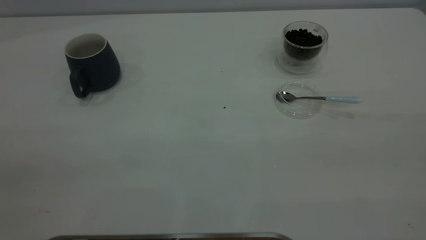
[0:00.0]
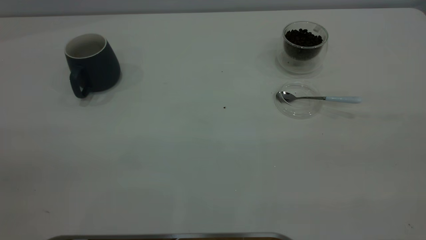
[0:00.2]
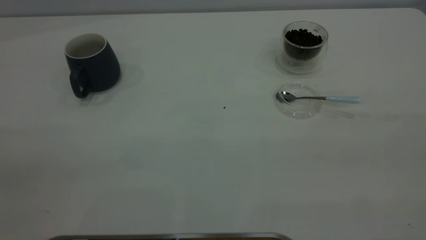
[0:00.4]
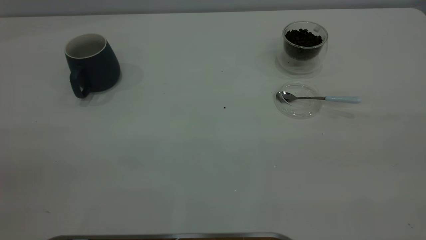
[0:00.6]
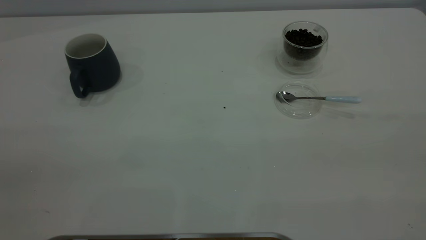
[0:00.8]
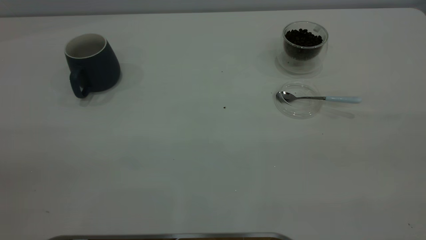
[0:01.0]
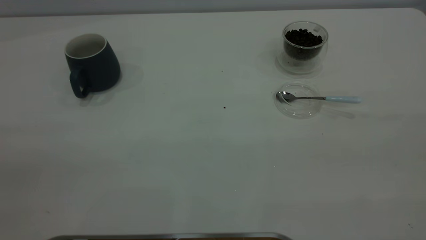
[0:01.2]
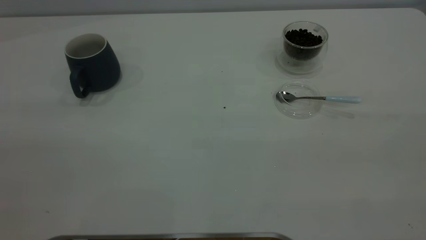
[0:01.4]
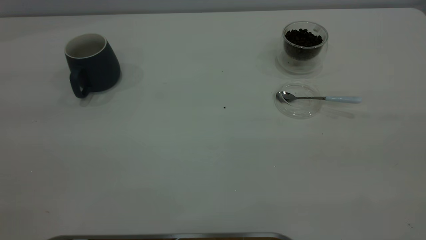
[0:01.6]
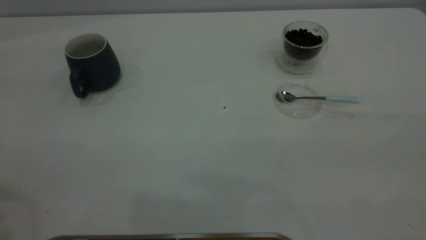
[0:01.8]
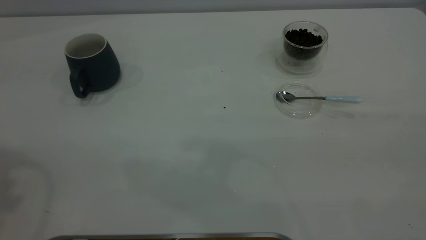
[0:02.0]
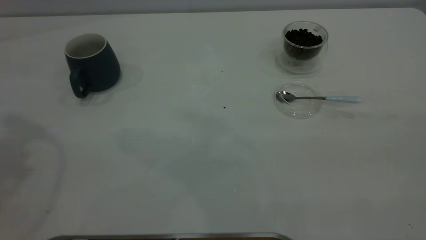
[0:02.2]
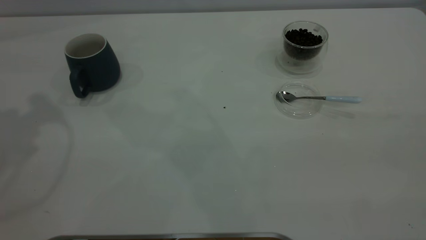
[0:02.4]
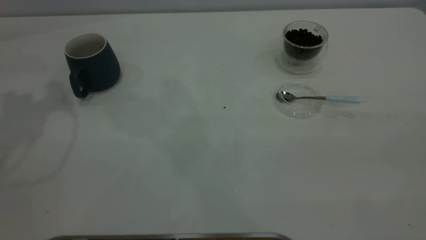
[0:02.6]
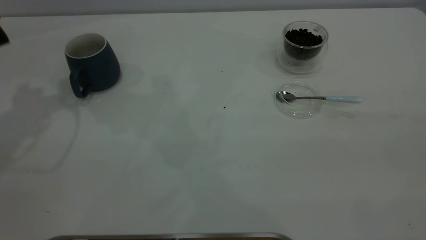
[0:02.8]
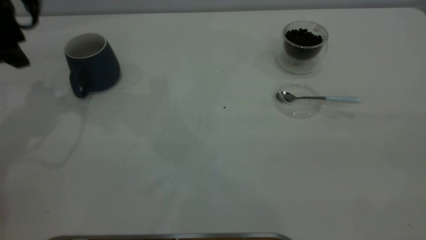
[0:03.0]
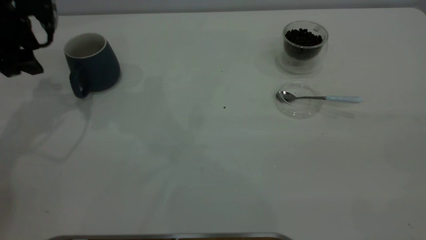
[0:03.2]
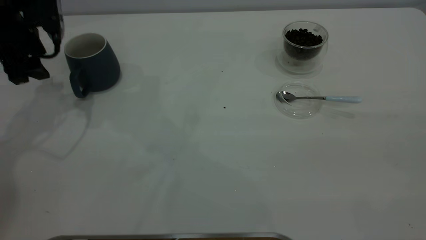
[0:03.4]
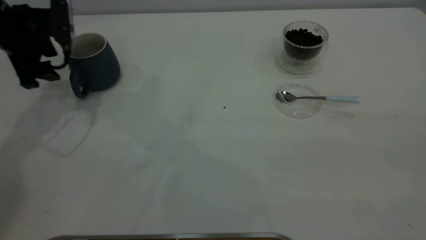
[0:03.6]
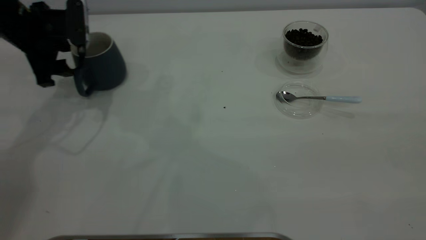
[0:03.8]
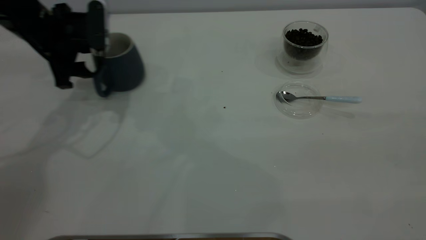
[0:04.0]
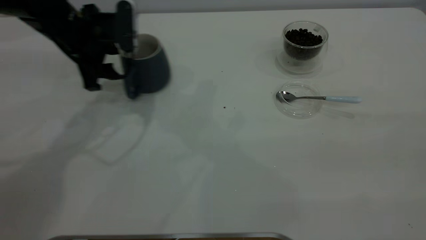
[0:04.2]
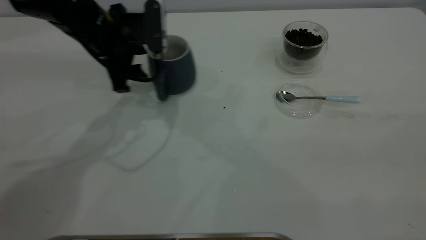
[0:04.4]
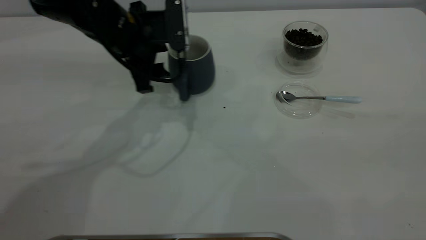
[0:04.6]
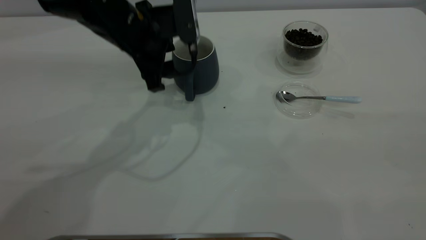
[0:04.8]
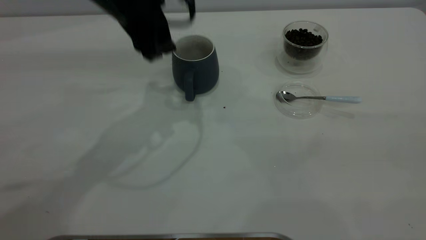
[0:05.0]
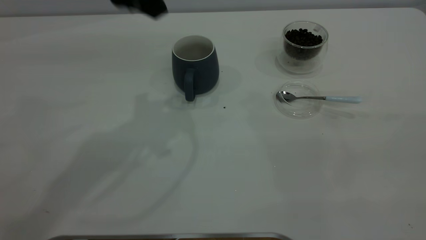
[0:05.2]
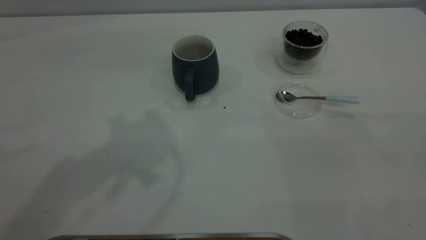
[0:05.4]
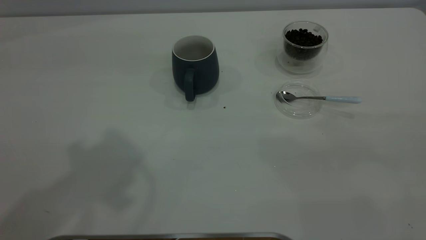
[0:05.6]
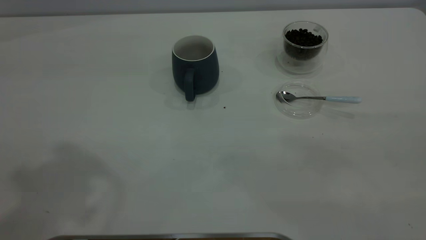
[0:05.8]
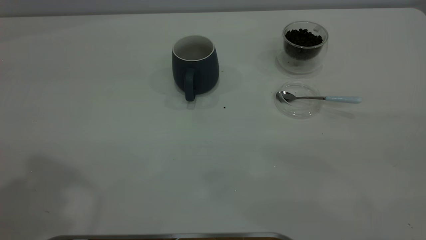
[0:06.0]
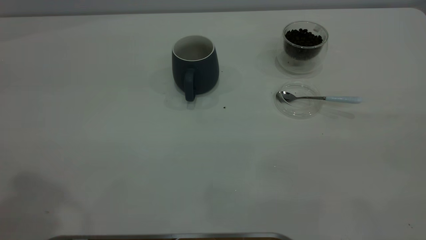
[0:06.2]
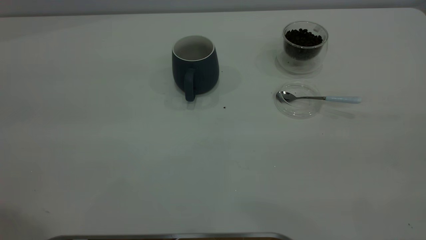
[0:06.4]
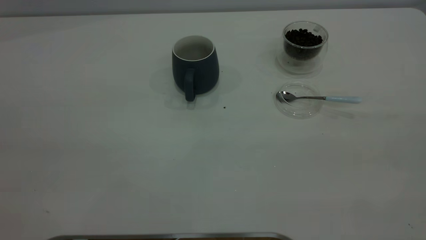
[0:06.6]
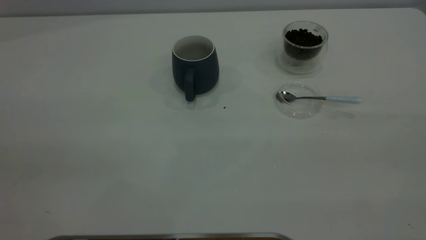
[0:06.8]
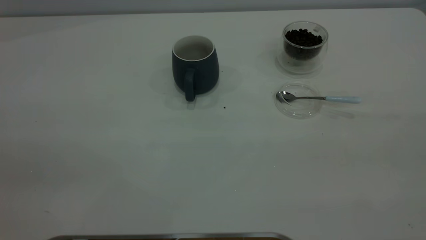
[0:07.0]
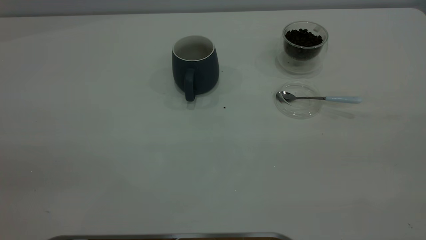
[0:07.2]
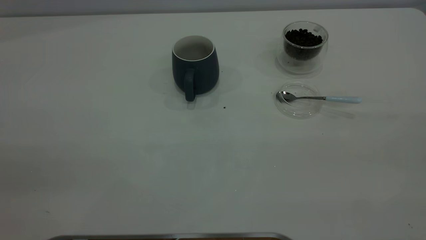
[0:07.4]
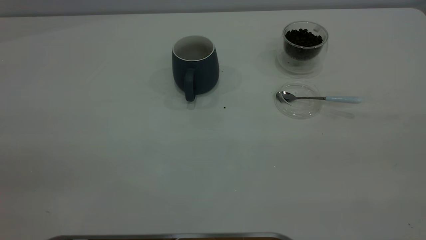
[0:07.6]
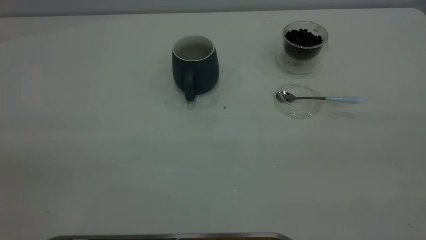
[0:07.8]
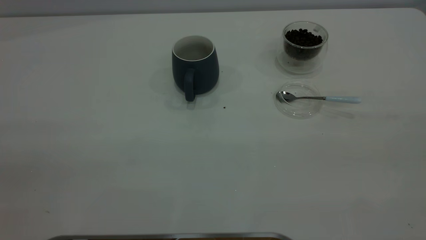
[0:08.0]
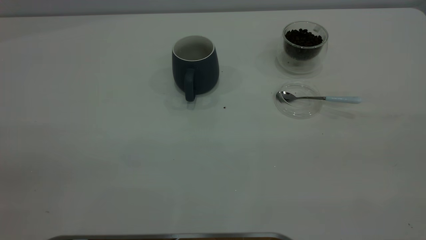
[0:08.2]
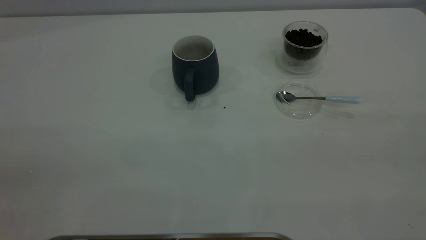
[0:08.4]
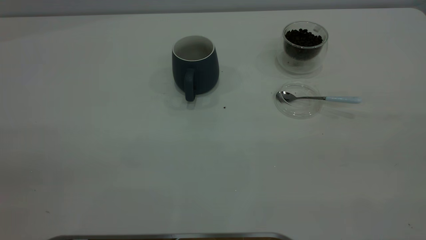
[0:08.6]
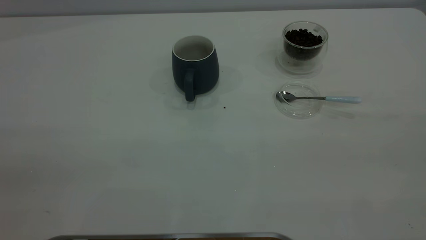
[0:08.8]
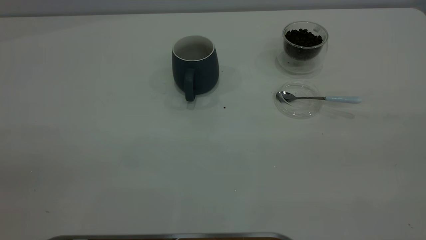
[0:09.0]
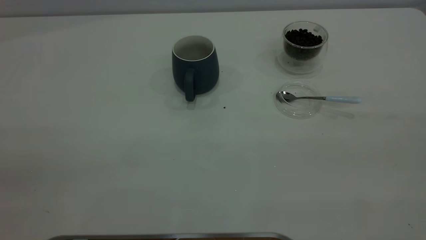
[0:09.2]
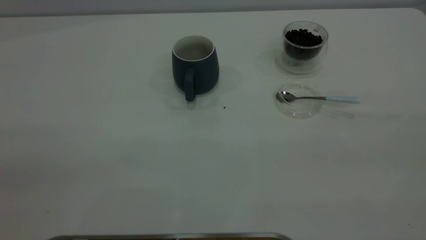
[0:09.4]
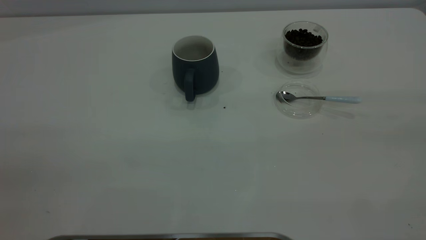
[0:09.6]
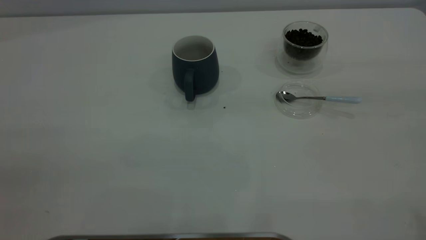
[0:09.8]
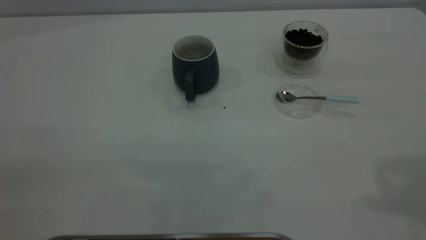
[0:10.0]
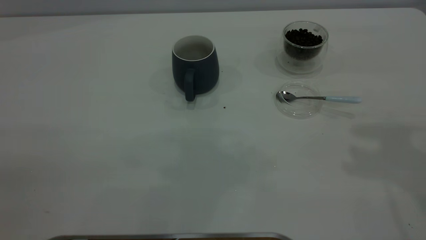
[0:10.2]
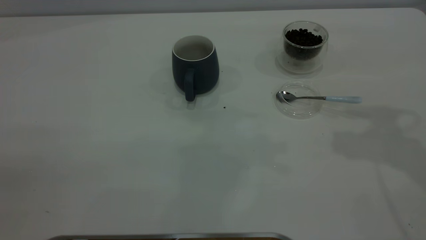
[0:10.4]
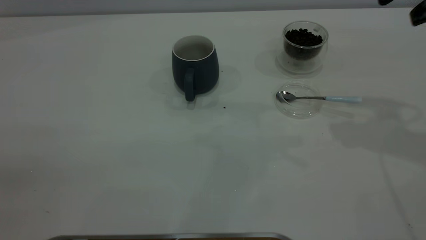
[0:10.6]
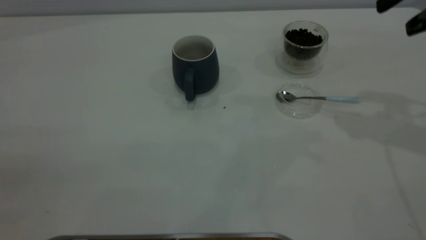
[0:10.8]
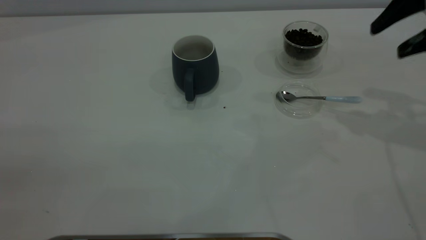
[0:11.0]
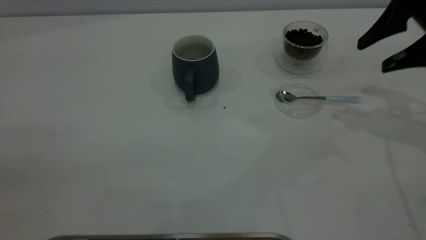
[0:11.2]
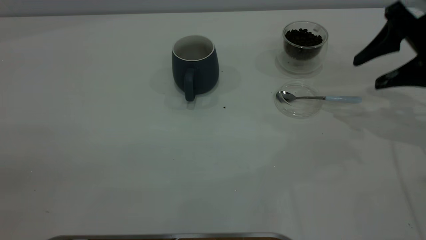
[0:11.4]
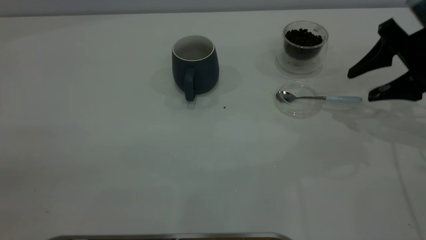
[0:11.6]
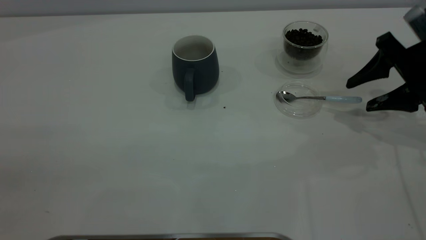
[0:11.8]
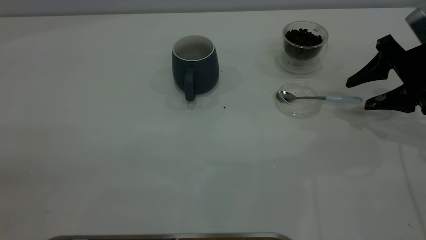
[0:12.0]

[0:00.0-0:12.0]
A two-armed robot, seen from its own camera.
Task of the whole recording: the left gripper place the grey cup in the center of the table, the right gripper take the blue spoon from the cup lid and scoop out the coffee beans from the coffee cup and put them into the grey cup, the right gripper put the spoon back into the cup lid.
Step, 0:00.0 to 0:05.0: Move the cup to the center of view.
0:01.6 to 0:03.0: The left gripper is displaced forward and downward by about 40 cm.
0:03.0 to 0:04.4: The left gripper is displaced to the right by about 15 cm.
0:04.4 to 0:06.0: The left gripper travels upward and backward by some 40 cm.
0:10.4 to 0:12.0: The right gripper moves downward, roughly 20 cm.

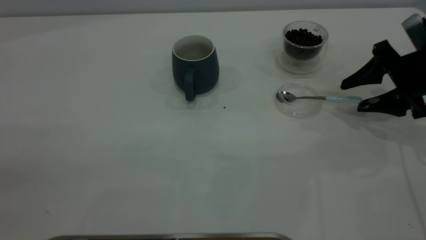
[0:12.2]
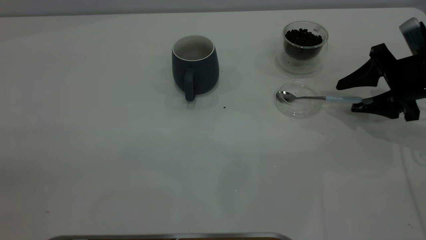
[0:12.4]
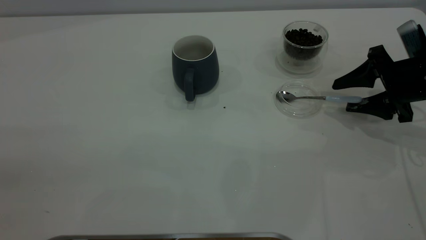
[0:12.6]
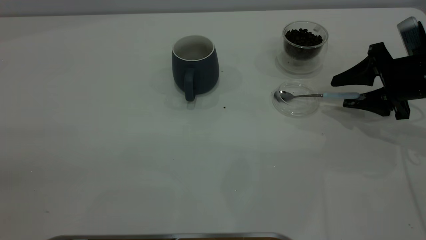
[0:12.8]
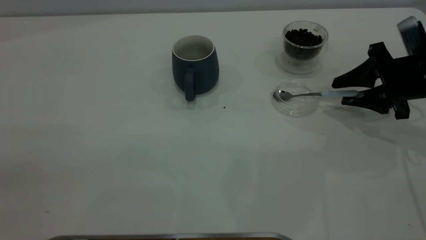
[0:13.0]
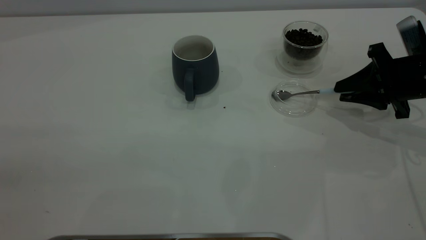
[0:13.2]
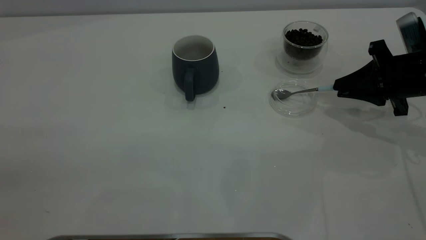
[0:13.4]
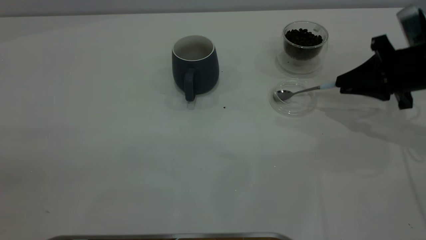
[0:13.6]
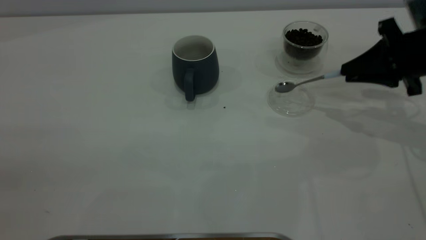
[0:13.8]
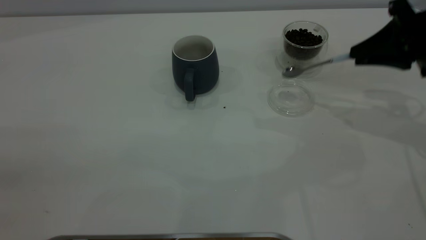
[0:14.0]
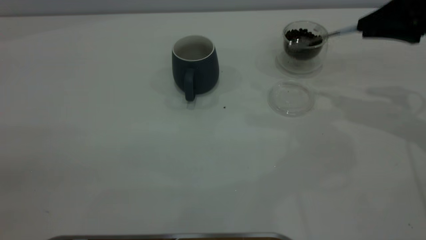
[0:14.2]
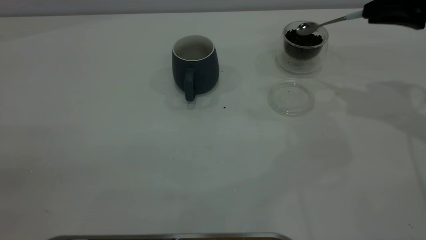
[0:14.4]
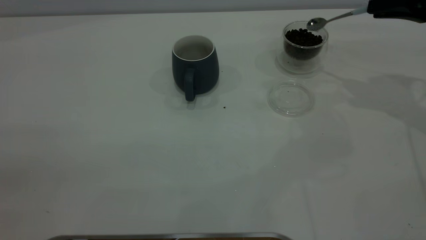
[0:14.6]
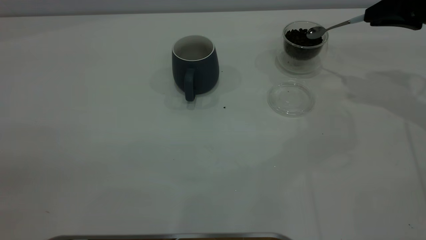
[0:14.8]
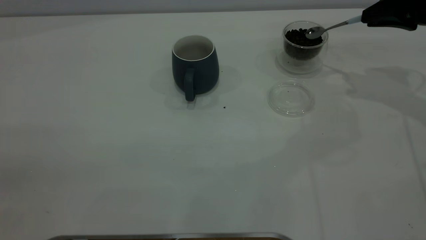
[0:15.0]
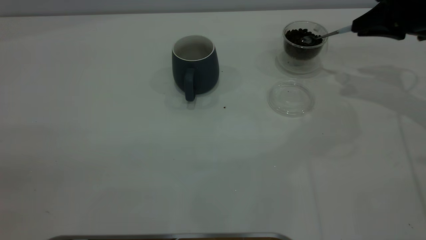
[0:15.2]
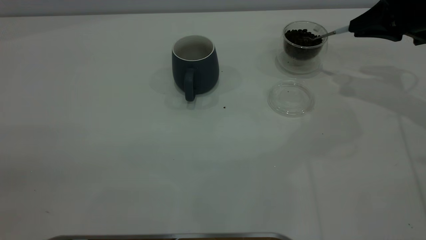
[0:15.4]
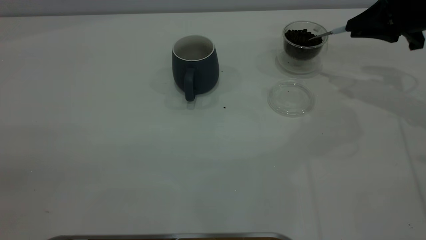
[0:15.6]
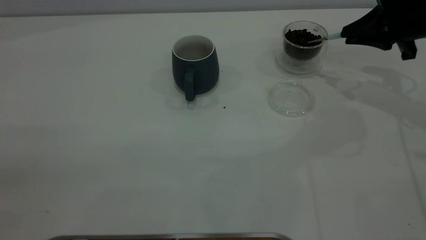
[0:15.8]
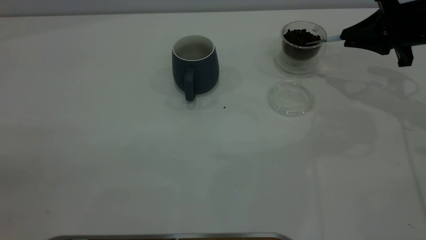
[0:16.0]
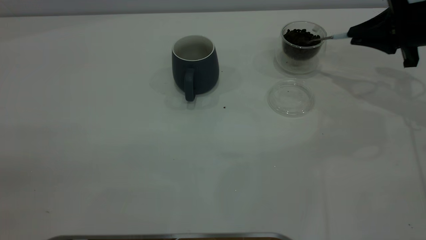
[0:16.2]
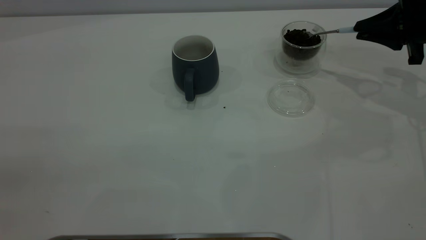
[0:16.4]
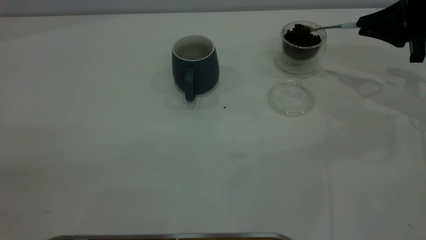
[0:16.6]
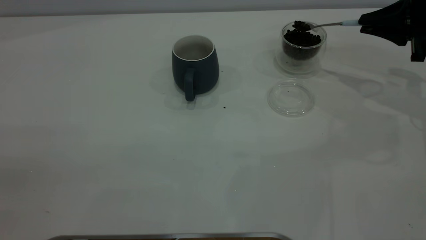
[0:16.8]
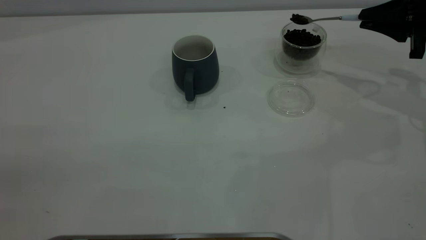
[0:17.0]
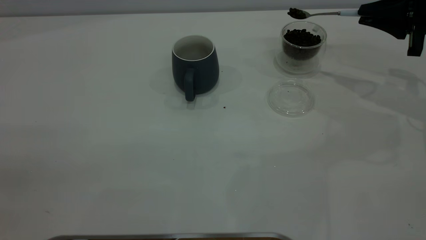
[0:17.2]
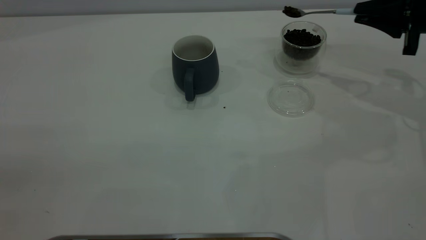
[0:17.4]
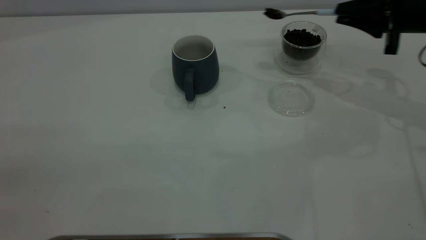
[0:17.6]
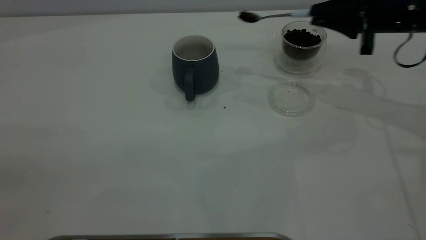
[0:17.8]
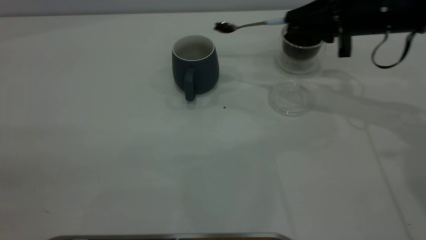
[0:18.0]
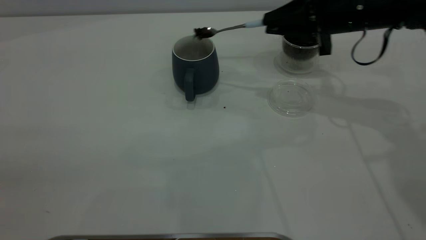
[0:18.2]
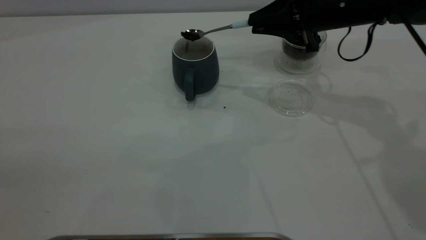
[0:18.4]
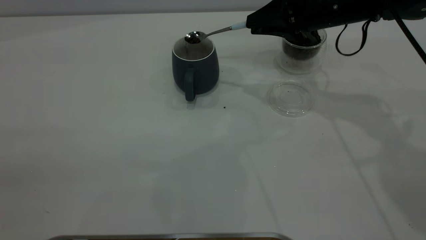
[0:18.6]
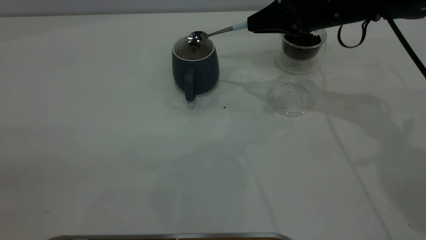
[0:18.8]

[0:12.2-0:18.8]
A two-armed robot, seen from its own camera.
Task of the whole recording: the left gripper place the grey cup in the center of the table, the right gripper take the blue spoon from the cup lid and scoop out the coffee beans from the coffee cup and put them into the grey cup, the right gripper put the spoon back into the cup lid.
0:12.2 to 0:13.8: The right gripper closes.
0:13.8 to 0:15.4: The right gripper travels forward by roughly 5 cm.
0:17.2 to 0:18.8: The right gripper is displaced to the left by some 15 cm.
